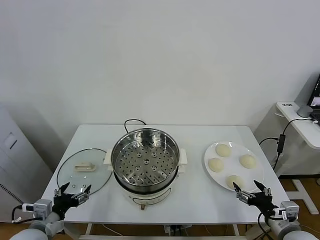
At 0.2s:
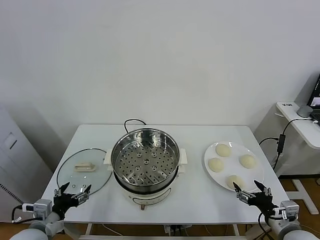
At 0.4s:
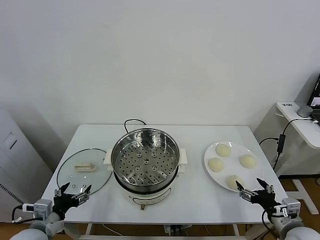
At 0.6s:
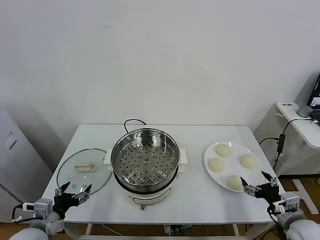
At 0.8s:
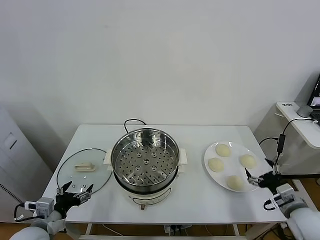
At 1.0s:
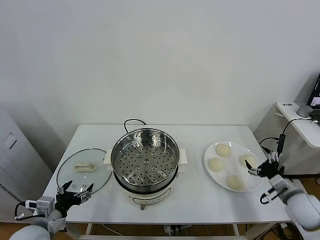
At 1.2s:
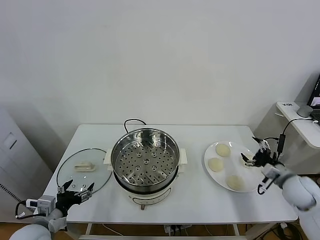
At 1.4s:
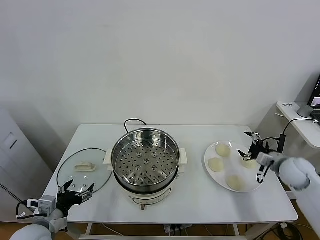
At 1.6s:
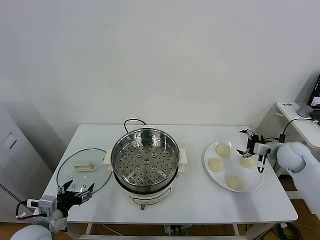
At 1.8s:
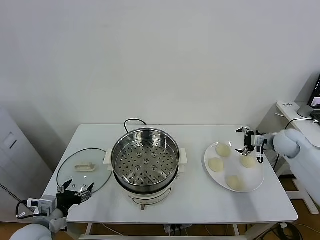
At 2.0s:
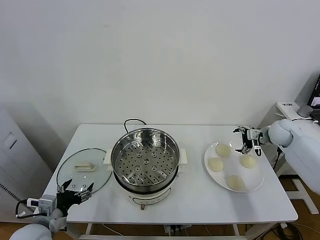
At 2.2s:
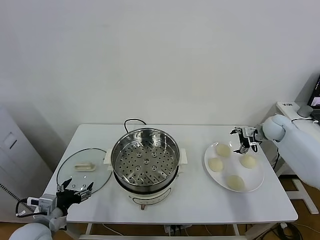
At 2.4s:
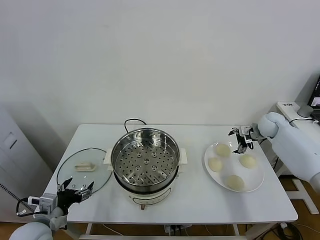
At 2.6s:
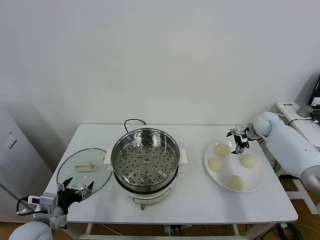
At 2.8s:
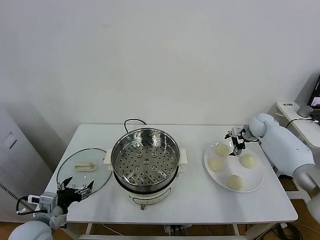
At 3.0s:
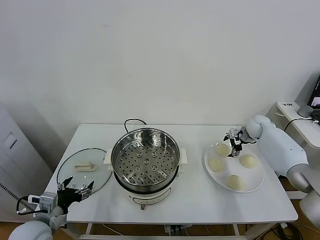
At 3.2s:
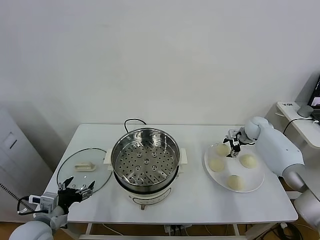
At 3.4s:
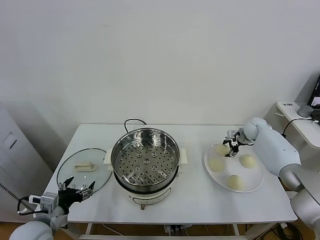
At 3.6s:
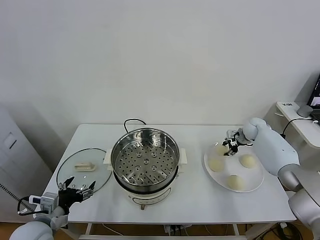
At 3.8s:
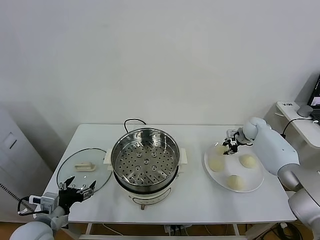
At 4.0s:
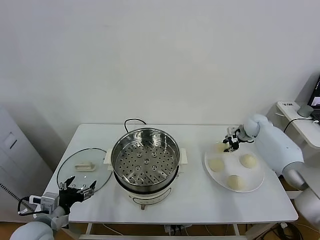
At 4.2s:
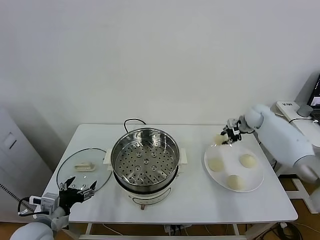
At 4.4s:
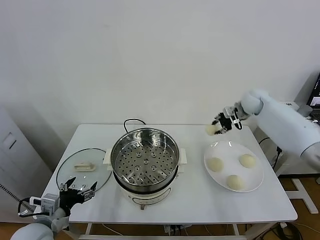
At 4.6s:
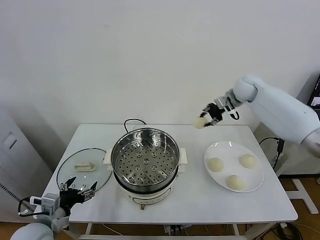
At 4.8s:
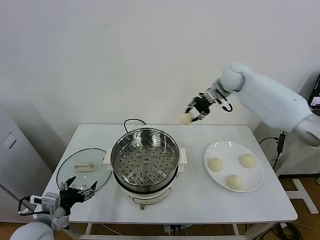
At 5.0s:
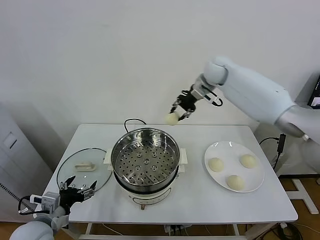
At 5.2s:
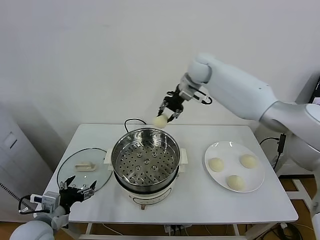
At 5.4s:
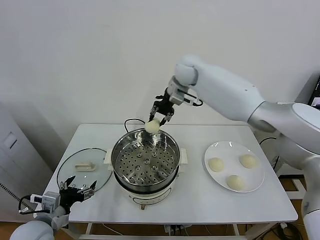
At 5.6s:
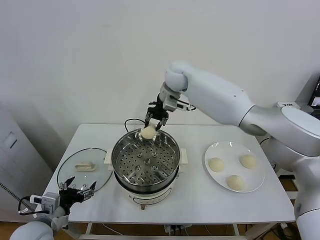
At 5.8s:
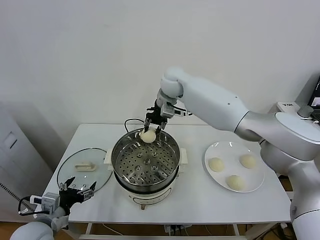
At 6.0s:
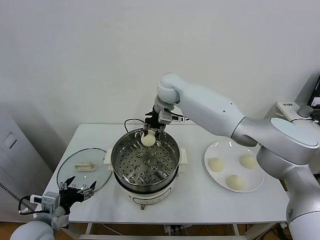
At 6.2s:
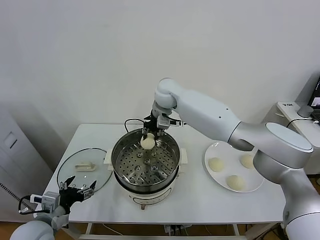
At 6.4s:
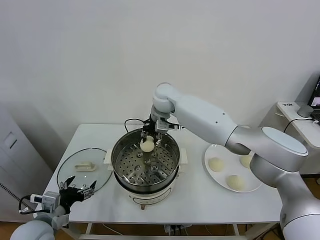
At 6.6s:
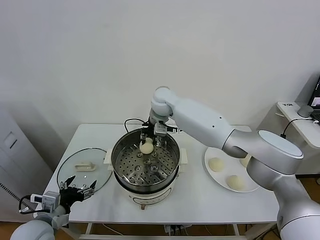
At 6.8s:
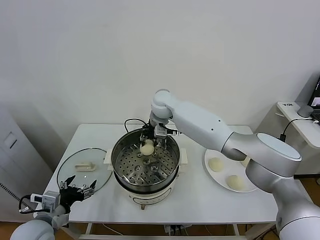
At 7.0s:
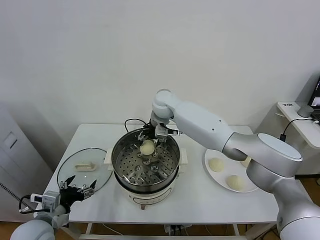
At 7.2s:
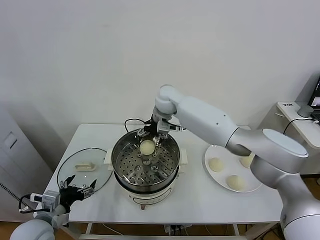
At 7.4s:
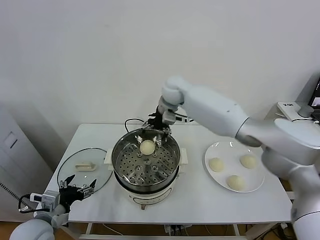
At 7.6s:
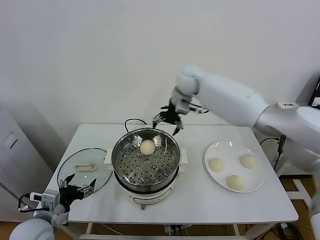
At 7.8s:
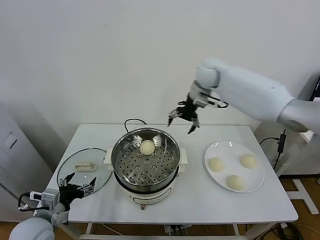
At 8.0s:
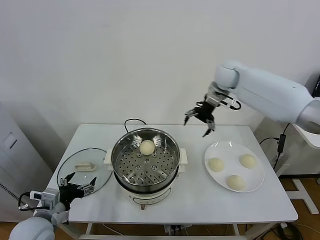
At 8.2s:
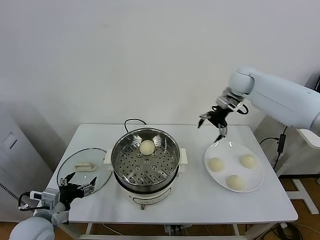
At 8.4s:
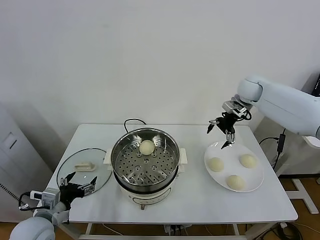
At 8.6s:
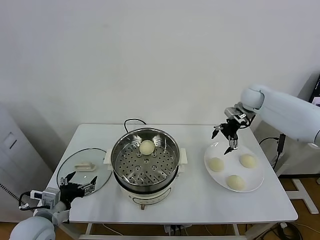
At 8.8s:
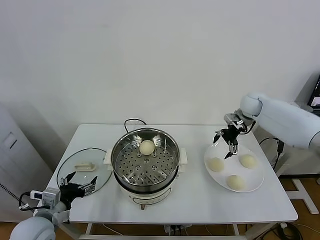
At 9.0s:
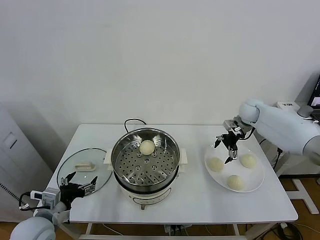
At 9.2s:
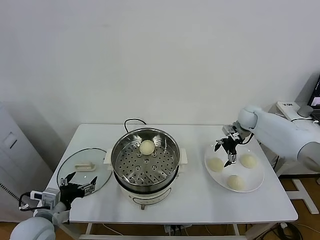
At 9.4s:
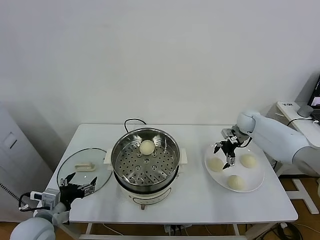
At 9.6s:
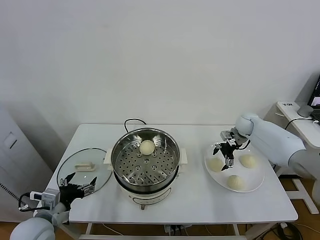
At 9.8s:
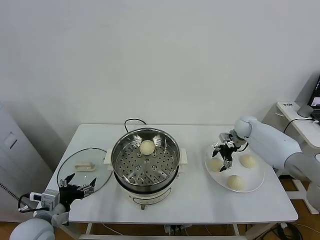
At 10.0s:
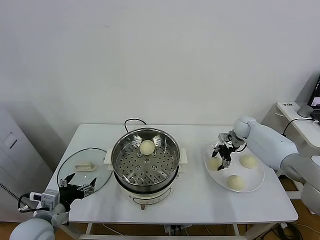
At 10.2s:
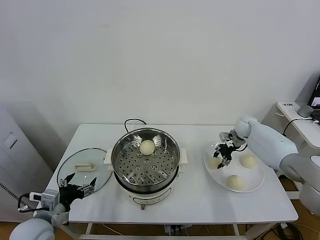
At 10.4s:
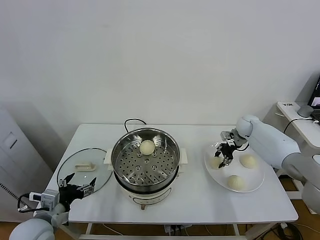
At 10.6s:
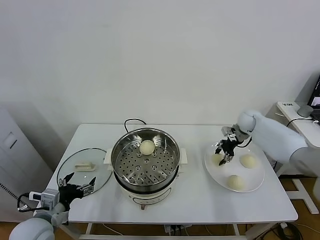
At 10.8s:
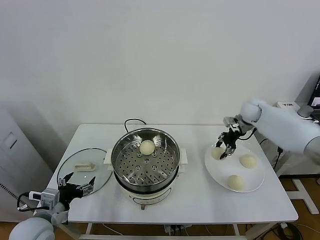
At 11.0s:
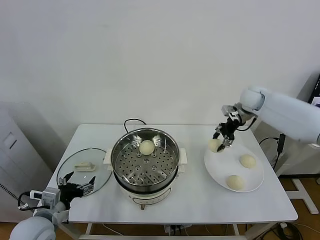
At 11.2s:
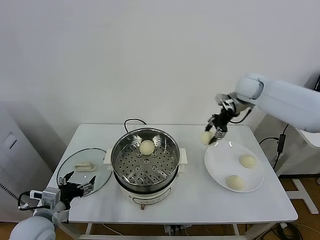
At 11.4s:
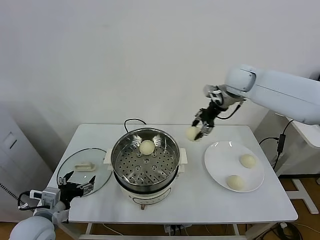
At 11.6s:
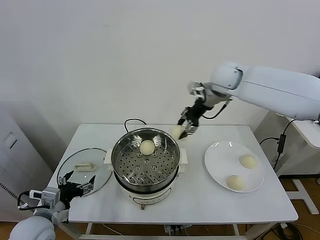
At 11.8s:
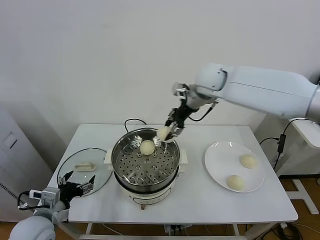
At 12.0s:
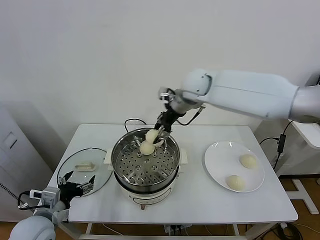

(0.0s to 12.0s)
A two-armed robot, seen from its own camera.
Task of the whole recording: take steamed baozi put them in steamer.
Step, 0.0s - 3.4s: Grasp the baozi in the plate with right gripper.
Step, 3.8s - 7.2s: Place the baozi on the steamer with right gripper.
Step, 7.4s - 10.0s: Grasp the baozi in the plate with right gripper.
1.6s - 3.0s: The right gripper travels forward by roughly 15 cm.
3.0s - 4.4s: The right gripper shifts some 20 cm upward and to the left, and closes its fingers.
4.4s - 6.0s: The right gripper shifts some 30 cm to the left.
6.0s - 7.6s: The right gripper heads to the right, covering some 10 cm, and opens.
7.6s - 9.0s: The right gripper heads to the right and downward, covering some 30 cm.
9.0s - 10.4s: The right gripper goes approximately 5 cm downward, and closes up.
10.4s - 12.0s: The right gripper heads to the left and upward, covering approximately 35 cm.

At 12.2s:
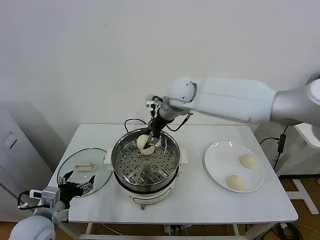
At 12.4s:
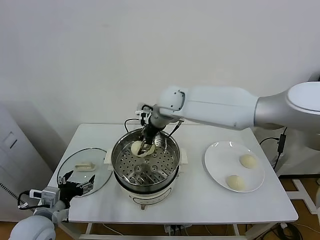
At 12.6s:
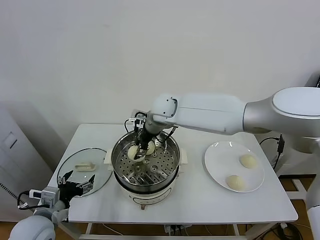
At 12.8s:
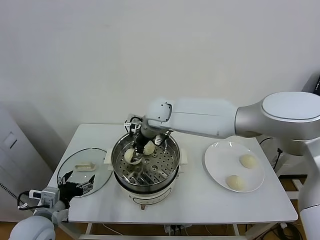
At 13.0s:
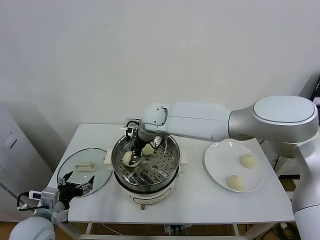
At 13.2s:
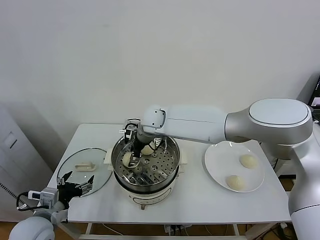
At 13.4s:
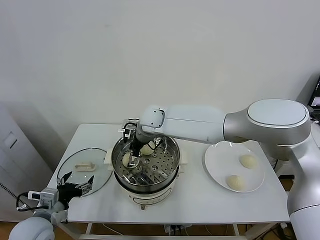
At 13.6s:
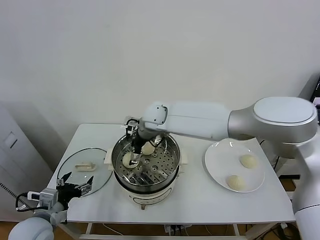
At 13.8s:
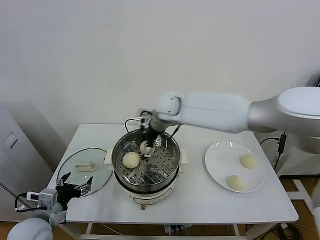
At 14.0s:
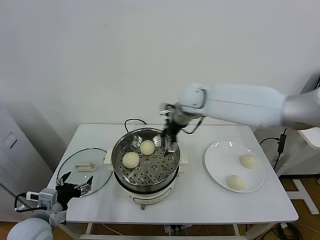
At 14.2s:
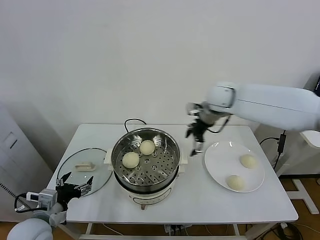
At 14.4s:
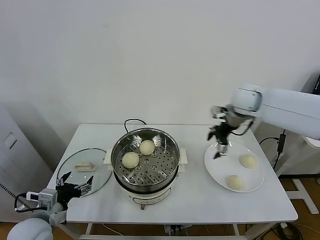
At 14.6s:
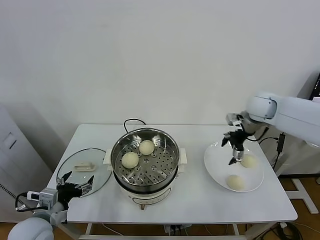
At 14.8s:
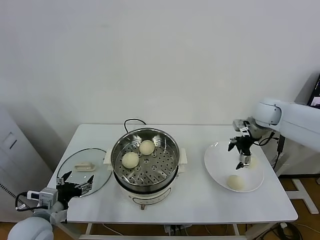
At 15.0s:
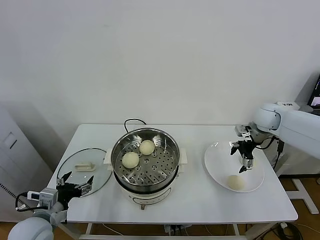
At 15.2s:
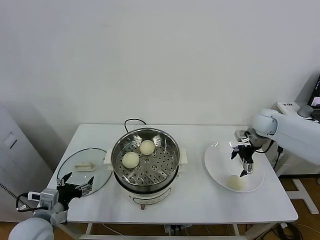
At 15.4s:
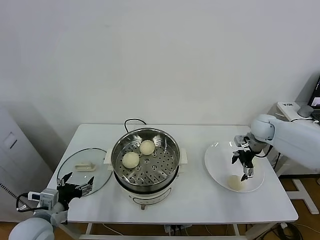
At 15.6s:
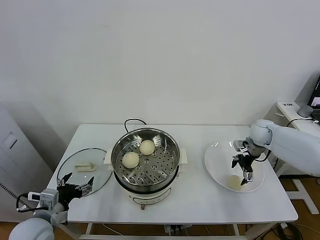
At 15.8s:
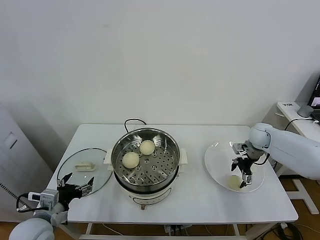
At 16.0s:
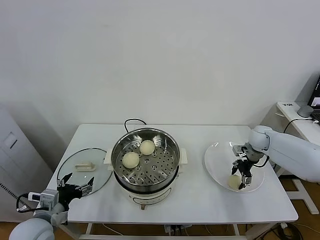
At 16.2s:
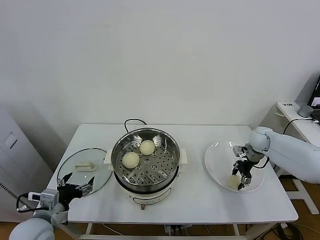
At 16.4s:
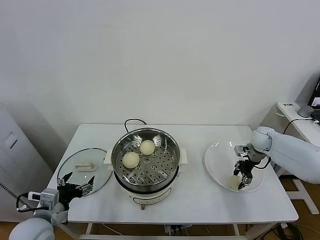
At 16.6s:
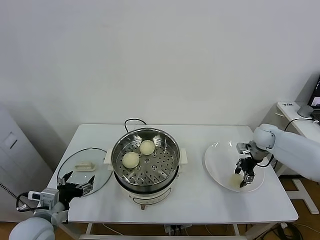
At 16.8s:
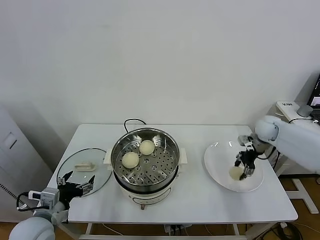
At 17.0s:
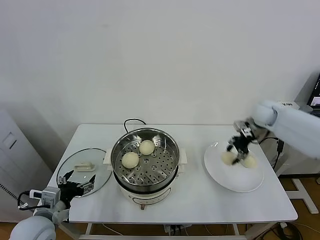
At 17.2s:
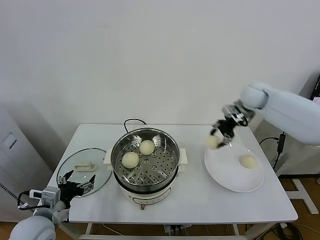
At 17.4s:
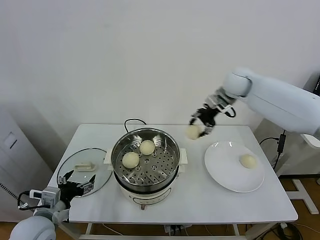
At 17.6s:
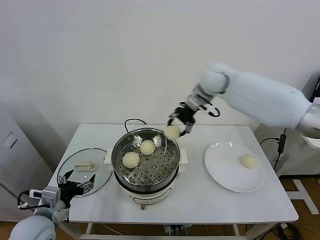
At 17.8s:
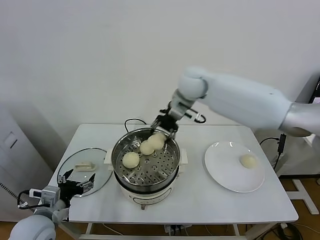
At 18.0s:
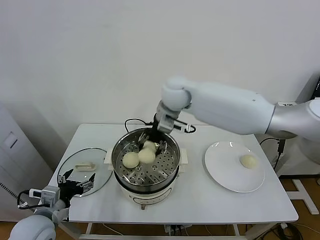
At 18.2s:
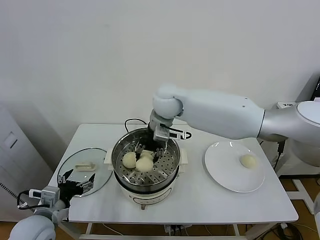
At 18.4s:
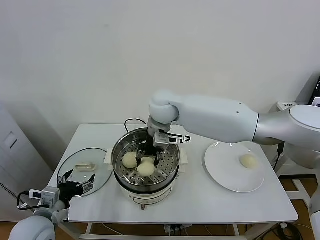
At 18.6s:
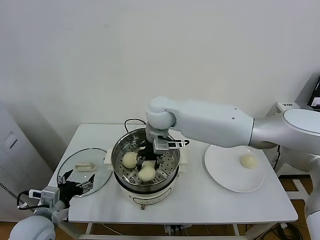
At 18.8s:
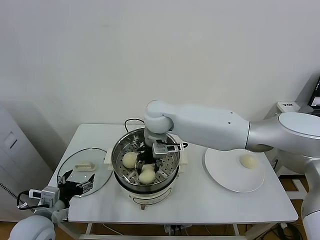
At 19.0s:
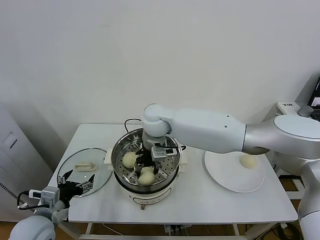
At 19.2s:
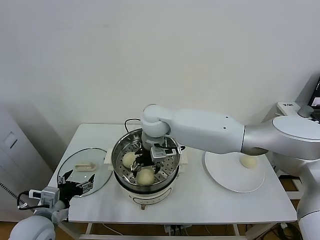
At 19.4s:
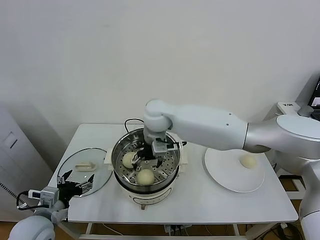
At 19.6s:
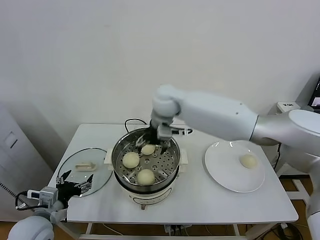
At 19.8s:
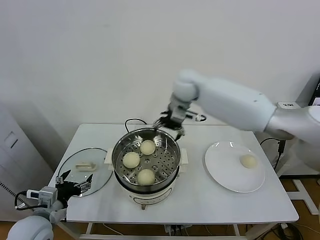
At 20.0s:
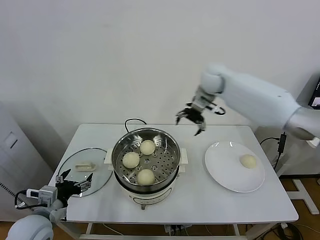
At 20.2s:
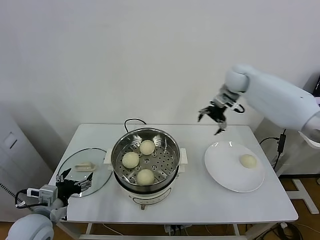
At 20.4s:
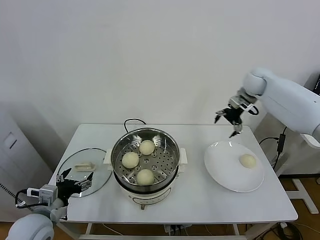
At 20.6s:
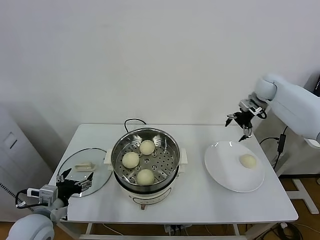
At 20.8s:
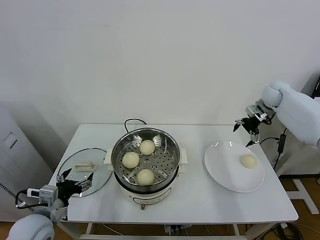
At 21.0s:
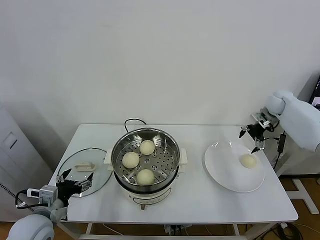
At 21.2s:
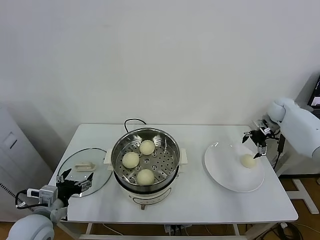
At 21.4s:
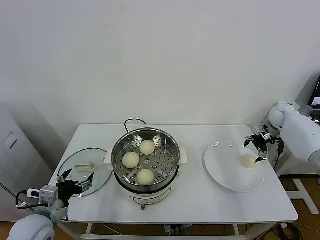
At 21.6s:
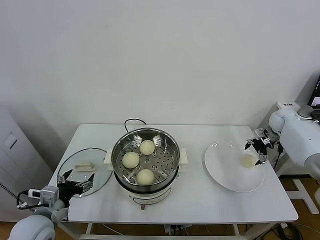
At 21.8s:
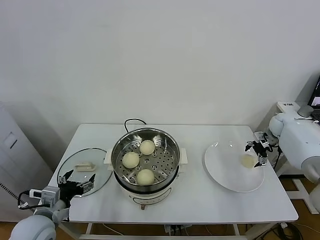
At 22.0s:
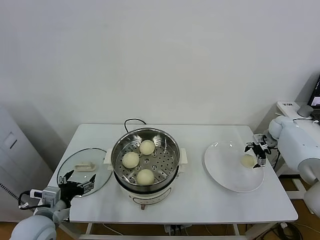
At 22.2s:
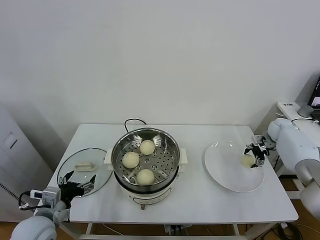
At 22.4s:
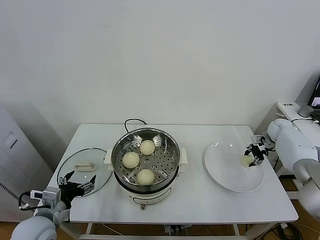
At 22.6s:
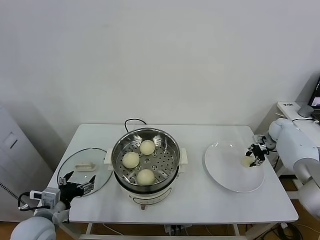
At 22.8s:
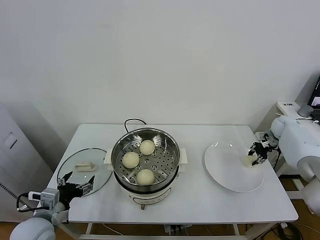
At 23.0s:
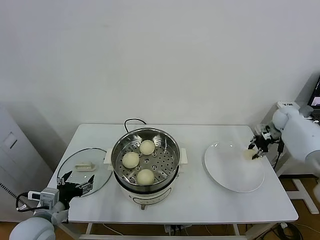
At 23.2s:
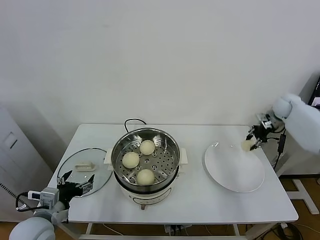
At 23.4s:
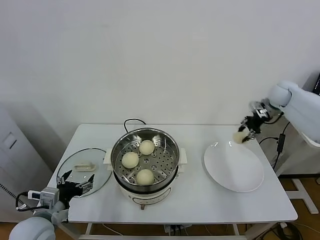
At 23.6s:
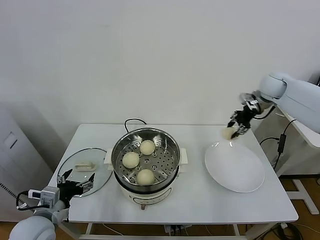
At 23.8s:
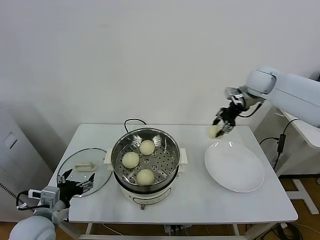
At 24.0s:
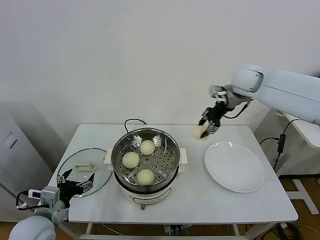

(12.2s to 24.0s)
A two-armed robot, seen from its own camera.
Task of the whole recording: take steamed baozi put them in steamer.
Step, 13.8s - 16.4s: Grasp the baozi in the plate with right gripper.
Step, 16.6s - 19.4s: Place the baozi on the steamer with right gripper.
Step, 19.6s - 22.6s: Grasp the baozi in the plate with right gripper.
12.2s - 13.6s: The right gripper heads downward and to the left, covering roughly 10 cm, and opens its fingers.
13.6s - 15.2s: The right gripper travels to the right by some 40 cm.
15.2s - 16.6s: The right gripper travels downward by approximately 5 cm, and closes.
16.6s - 18.2s: The right gripper moves to the left and upward, approximately 40 cm.
18.2s - 19.6s: The right gripper opens.
19.6s - 21.0s: The right gripper shifts some 40 cm to the right.
21.0s - 22.6s: The right gripper moves downward and to the right, roughly 15 cm, and closes its fingers.
22.6s - 24.0s: The right gripper goes roughly 35 cm upward and to the left.
